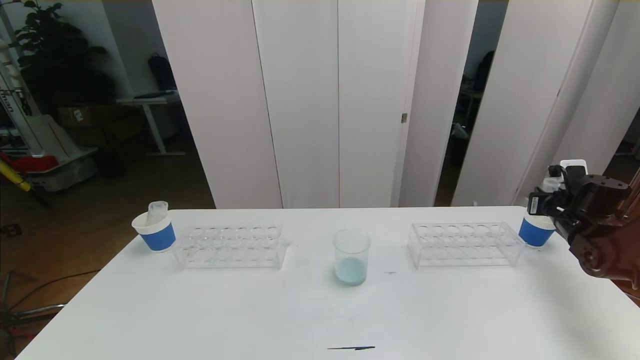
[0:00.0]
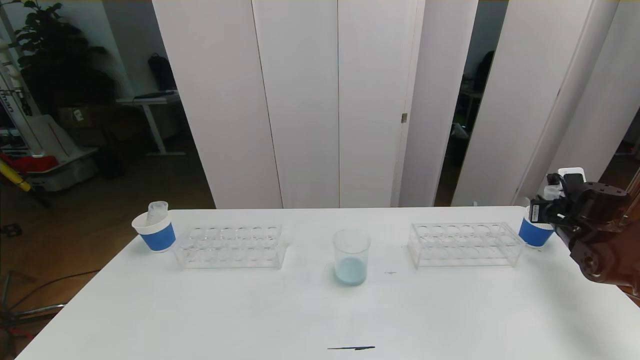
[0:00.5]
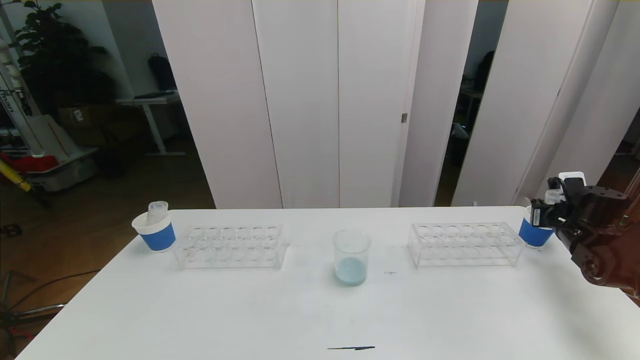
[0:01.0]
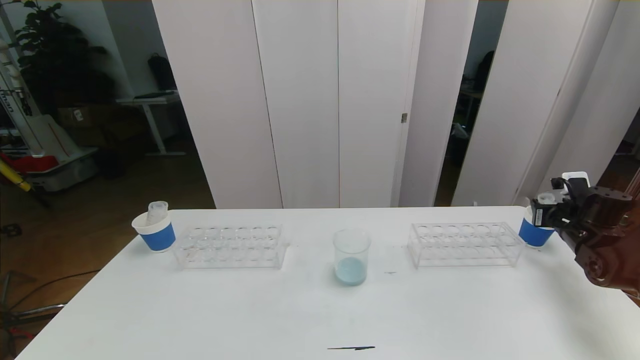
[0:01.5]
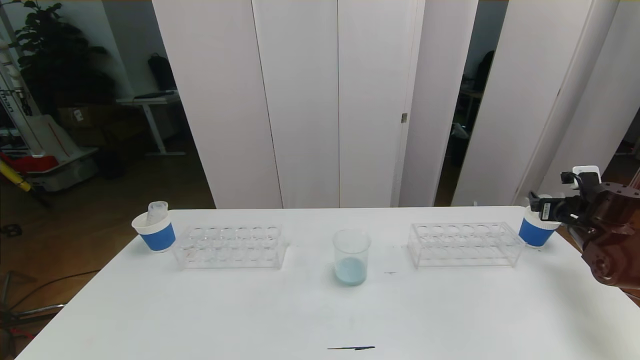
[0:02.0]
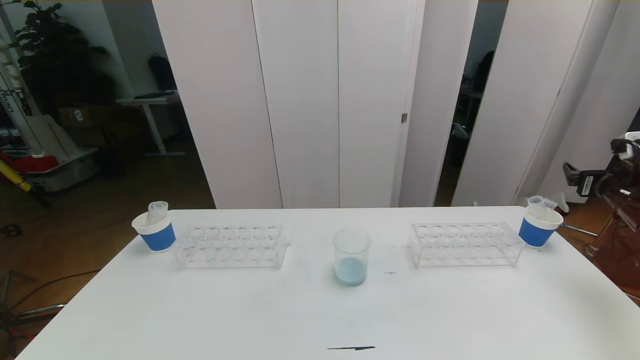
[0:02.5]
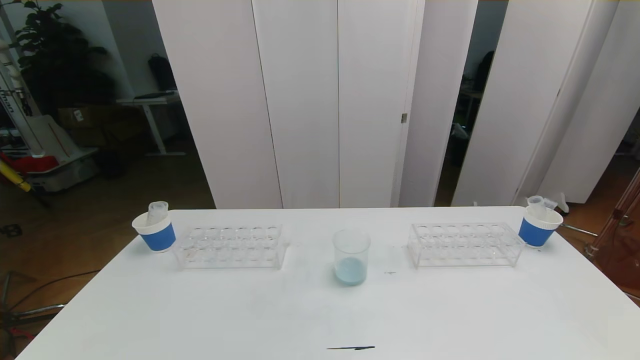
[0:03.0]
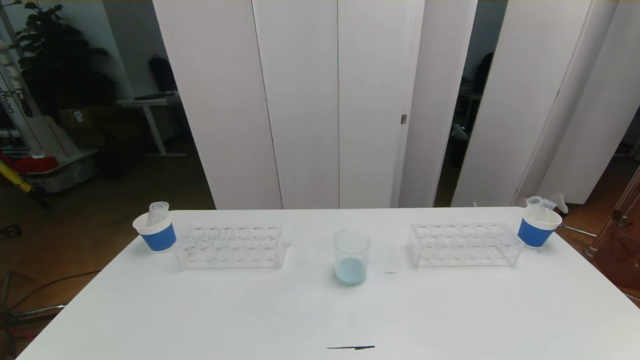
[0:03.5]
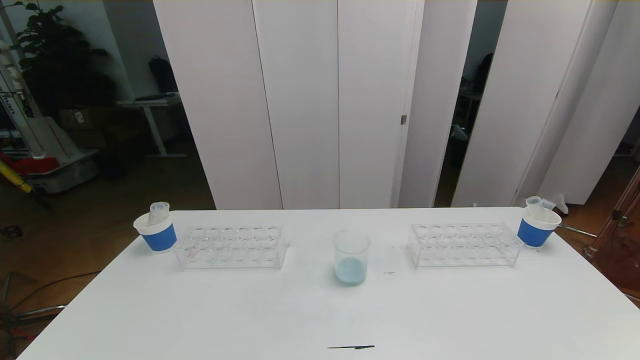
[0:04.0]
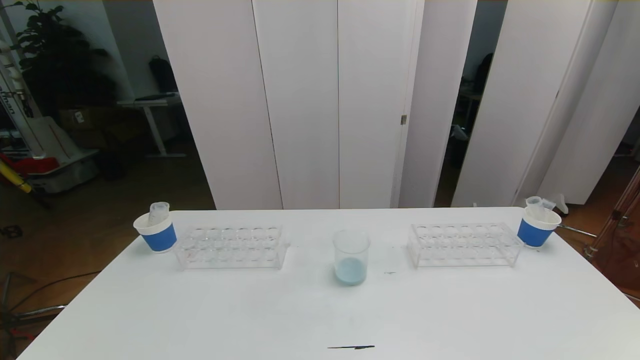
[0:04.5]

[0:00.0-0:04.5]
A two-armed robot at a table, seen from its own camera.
Task of the whole recording: pick up the test tube with red pigment the test tube with blue pigment and the test tube with white pigment by grippers and pour them into the beaker.
0:00.0 to 0:02.0: The right gripper opens its fingers.
0:02.0 to 0:04.5: The right gripper travels backward by about 40 cm.
